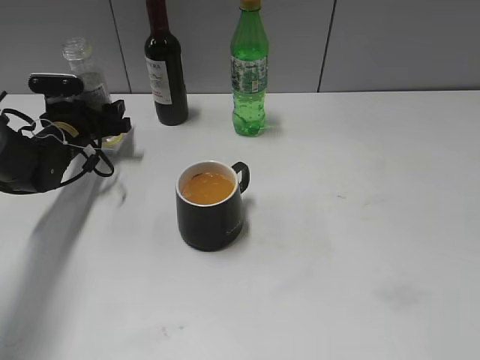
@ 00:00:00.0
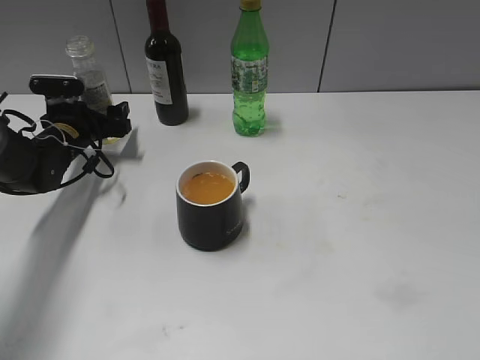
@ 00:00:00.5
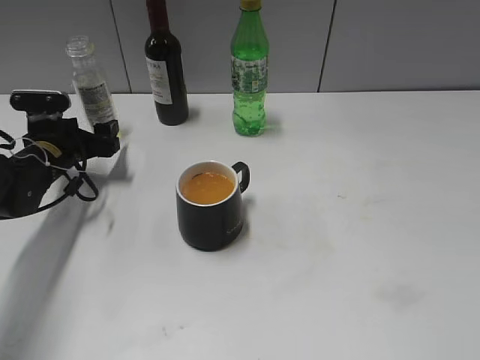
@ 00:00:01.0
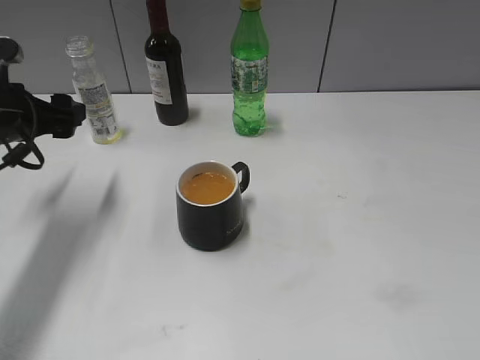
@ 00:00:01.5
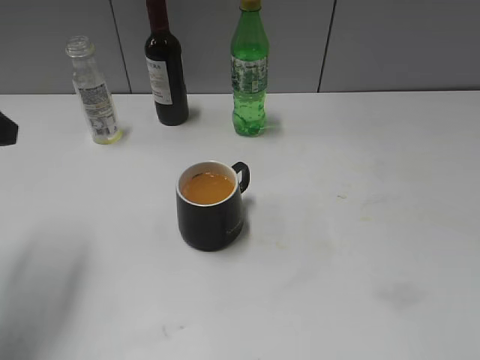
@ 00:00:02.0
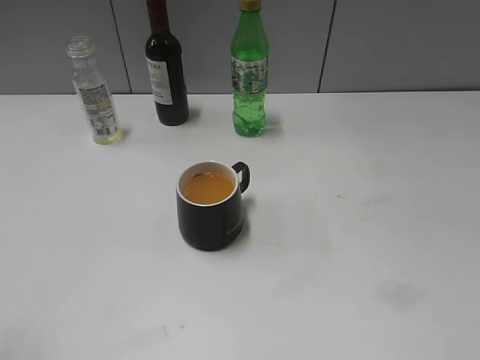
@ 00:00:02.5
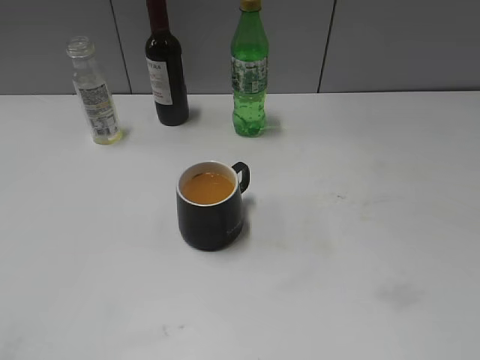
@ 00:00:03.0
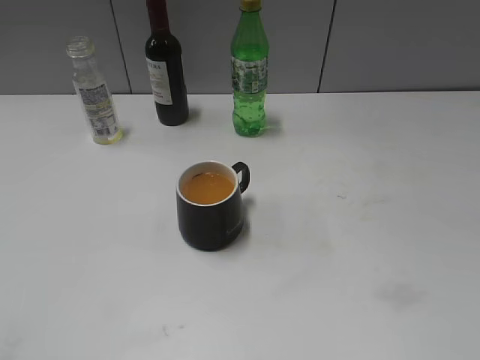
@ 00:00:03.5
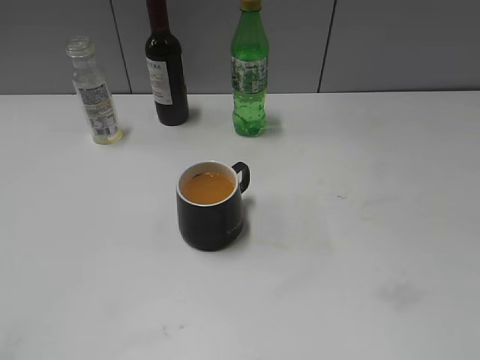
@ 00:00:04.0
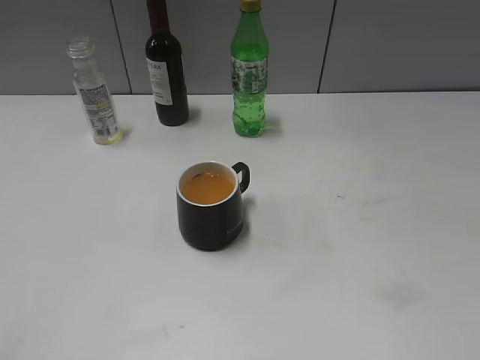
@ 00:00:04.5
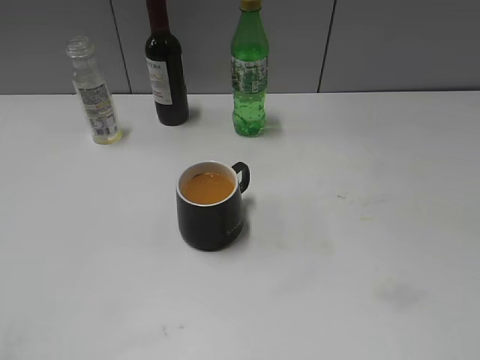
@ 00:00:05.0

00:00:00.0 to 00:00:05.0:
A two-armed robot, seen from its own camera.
00:00:00.0 to 00:00:02.5: The left gripper travels backward and upward by some 40 cm.
